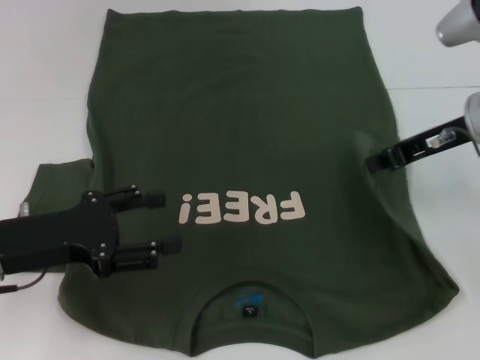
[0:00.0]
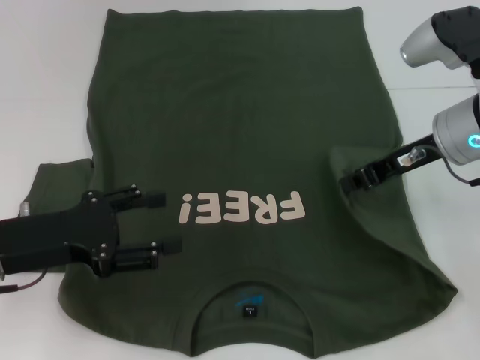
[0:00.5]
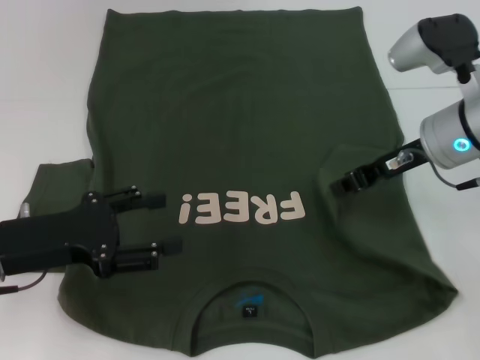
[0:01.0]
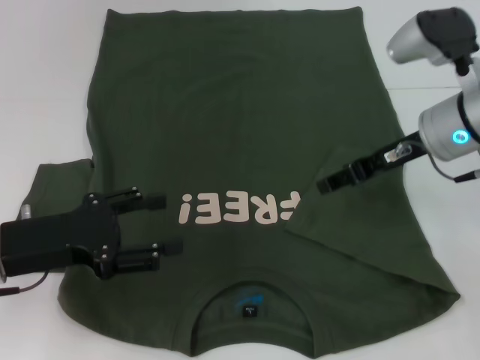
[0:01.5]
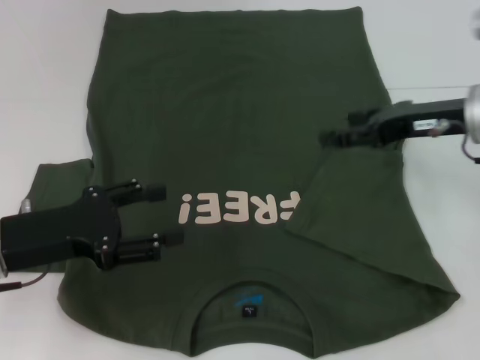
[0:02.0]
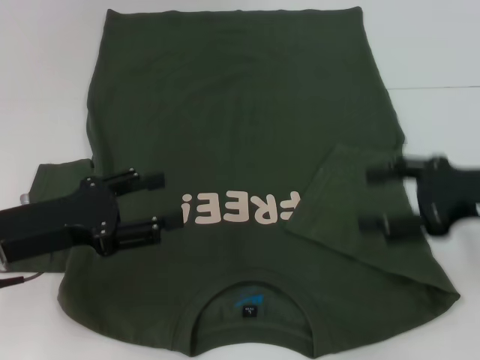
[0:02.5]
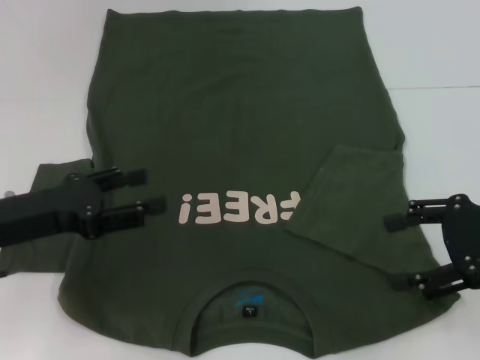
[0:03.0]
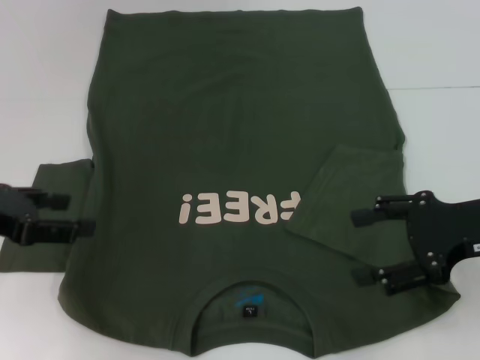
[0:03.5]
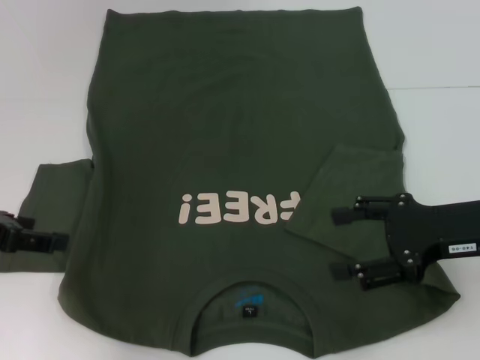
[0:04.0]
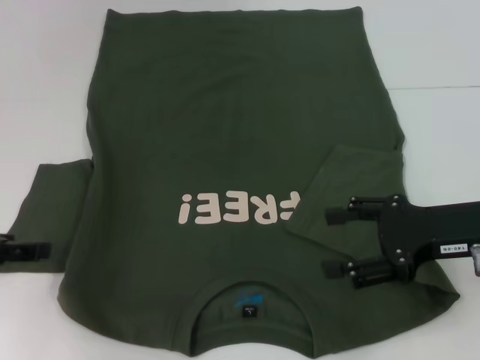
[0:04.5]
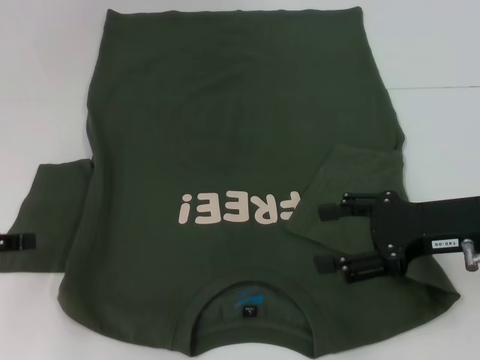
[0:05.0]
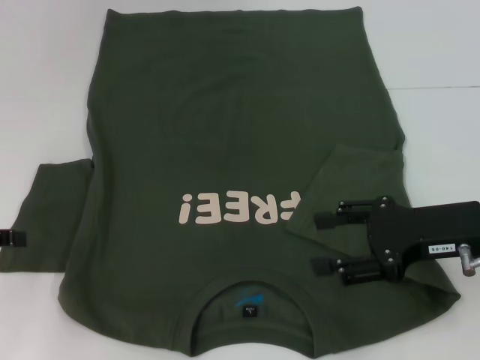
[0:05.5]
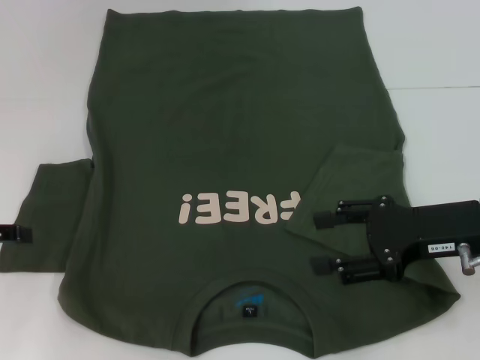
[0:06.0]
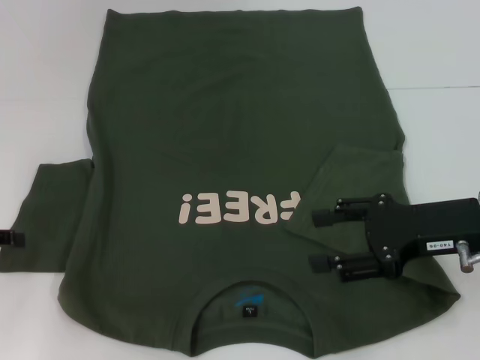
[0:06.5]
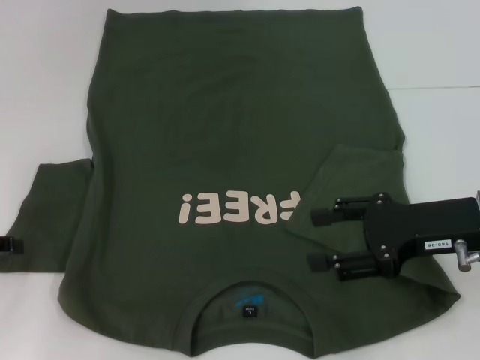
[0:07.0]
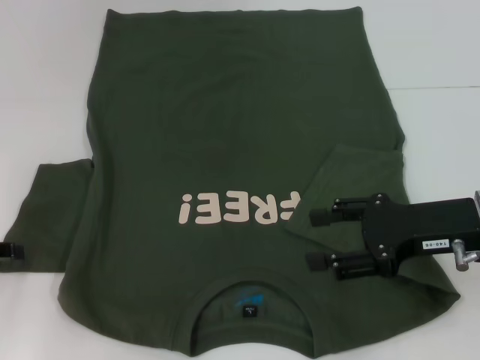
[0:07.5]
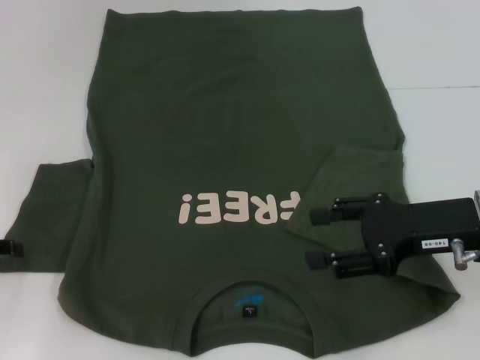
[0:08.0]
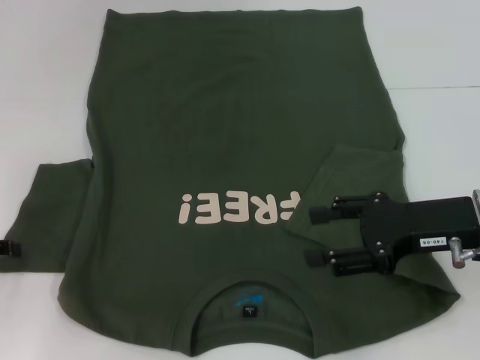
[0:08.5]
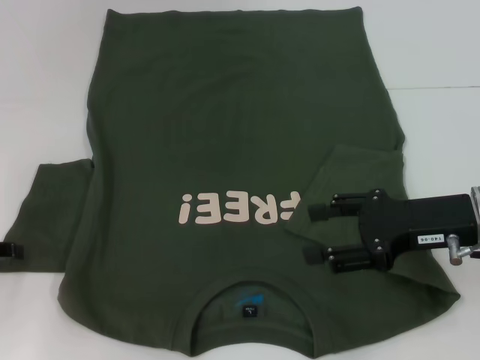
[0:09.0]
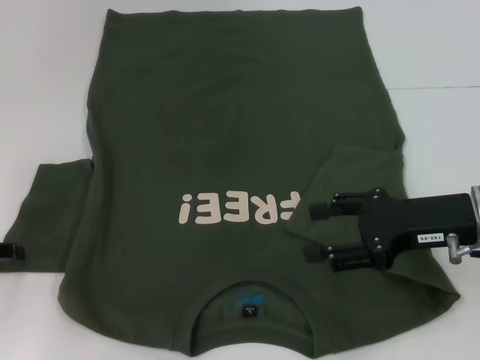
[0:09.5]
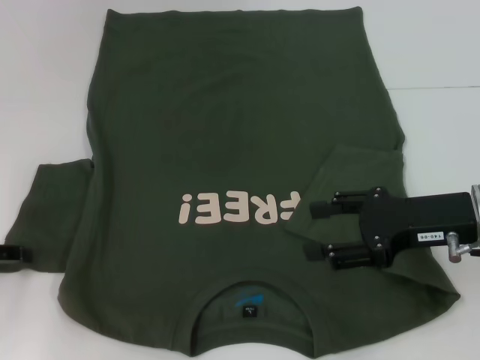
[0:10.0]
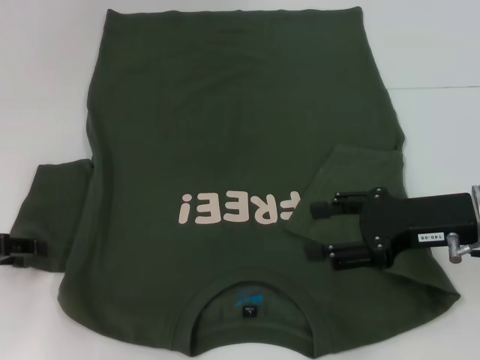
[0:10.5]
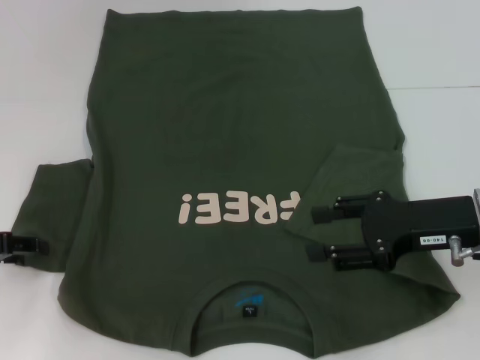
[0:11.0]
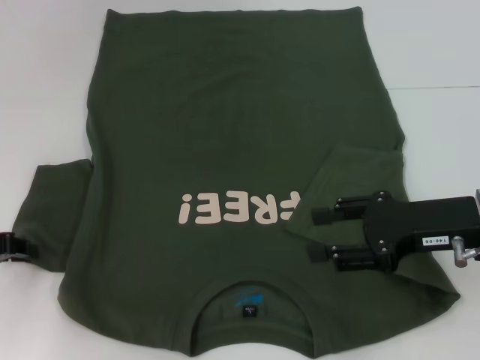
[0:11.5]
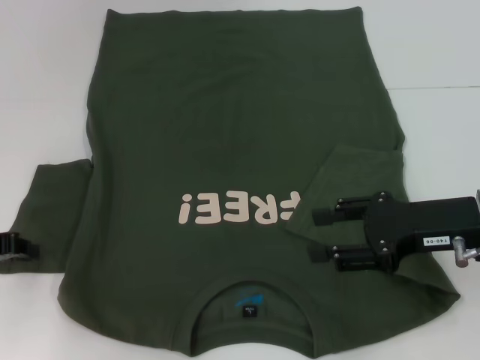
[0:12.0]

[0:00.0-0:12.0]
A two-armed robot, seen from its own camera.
0:00.0 to 0:02.0: The right gripper opens up.
0:02.0 to 0:04.0: The right gripper shifts some 10 cm backward; the left gripper heads upward and to the left, covering some 10 cm.
0:04.0 to 0:06.0: The left gripper moves some 5 cm.
0:06.0 to 0:08.0: The grippers stay close to where they were, moving slightly.
0:08.0 to 0:10.0: Neither gripper changes place.

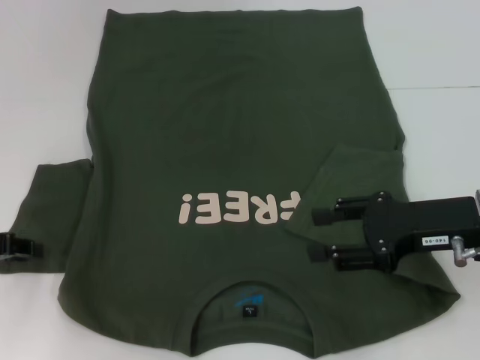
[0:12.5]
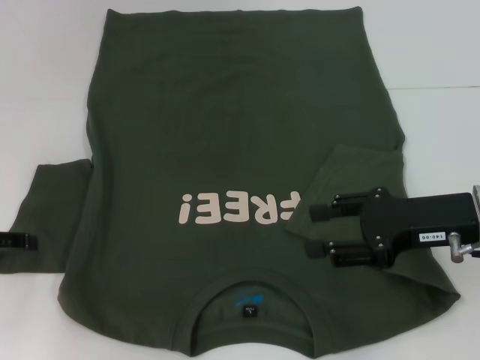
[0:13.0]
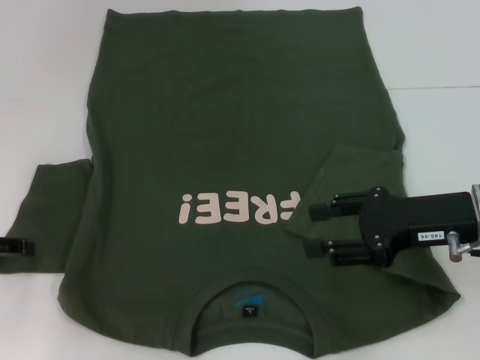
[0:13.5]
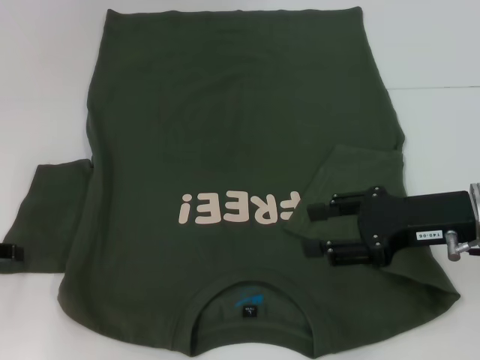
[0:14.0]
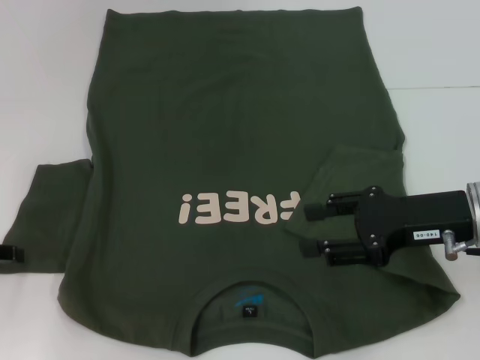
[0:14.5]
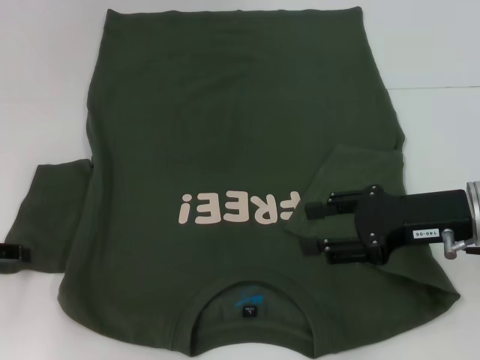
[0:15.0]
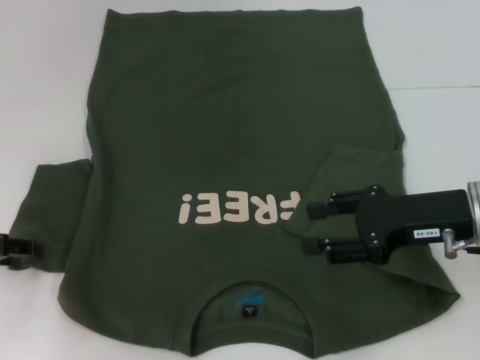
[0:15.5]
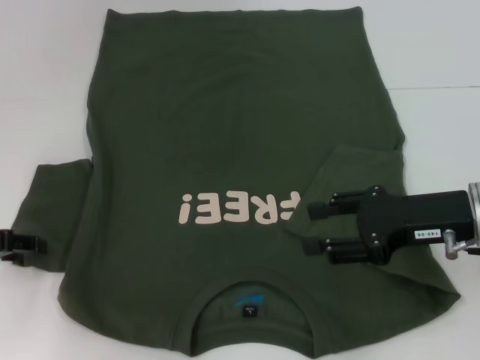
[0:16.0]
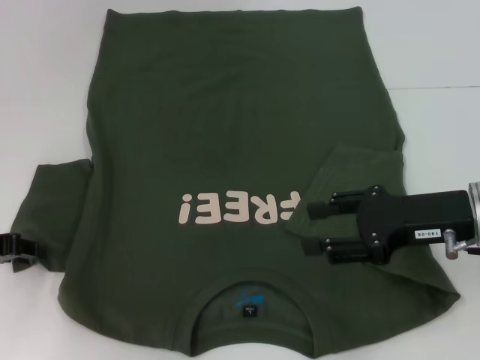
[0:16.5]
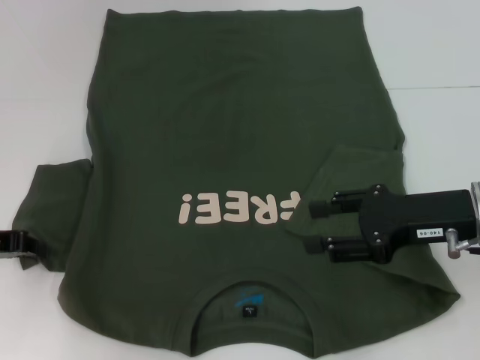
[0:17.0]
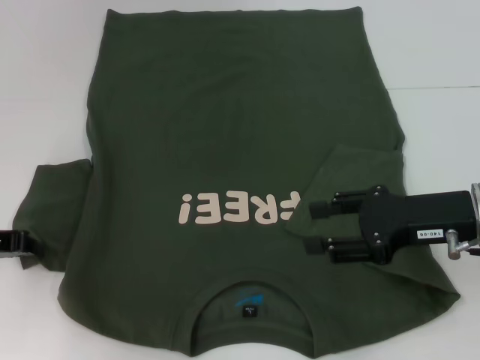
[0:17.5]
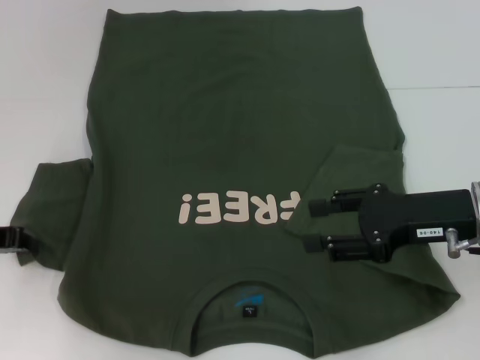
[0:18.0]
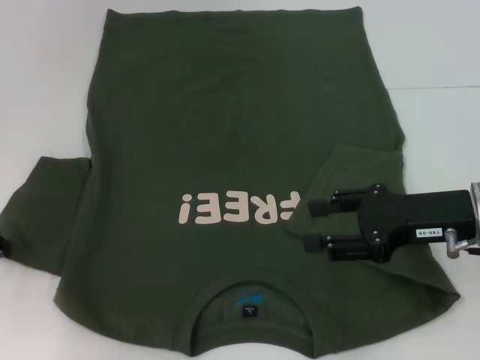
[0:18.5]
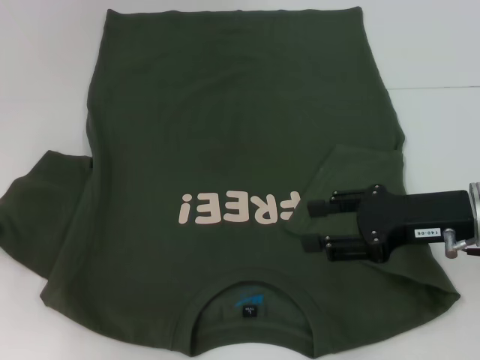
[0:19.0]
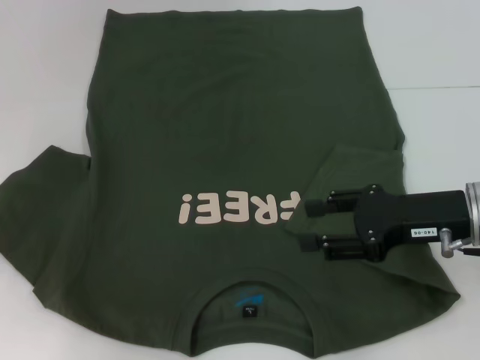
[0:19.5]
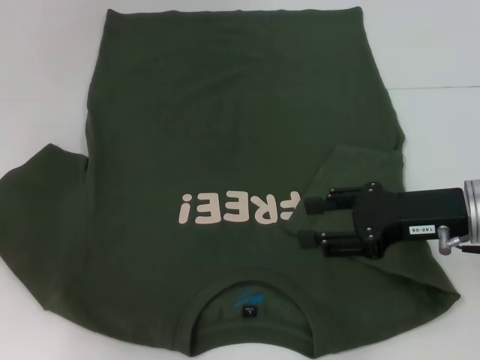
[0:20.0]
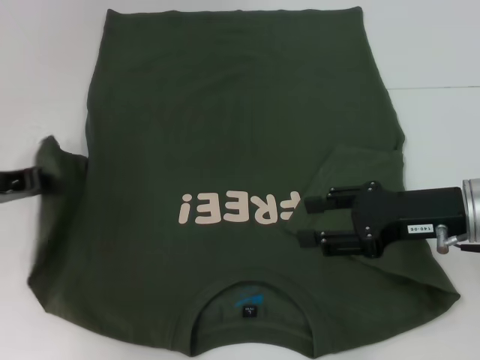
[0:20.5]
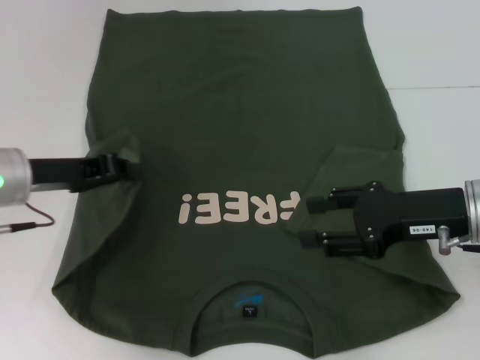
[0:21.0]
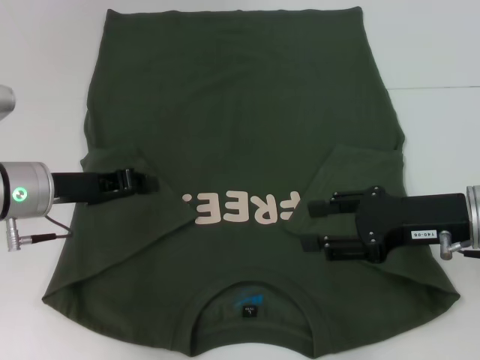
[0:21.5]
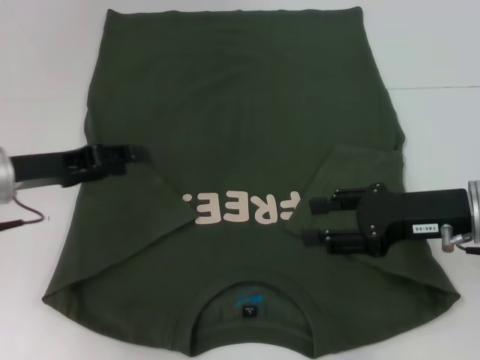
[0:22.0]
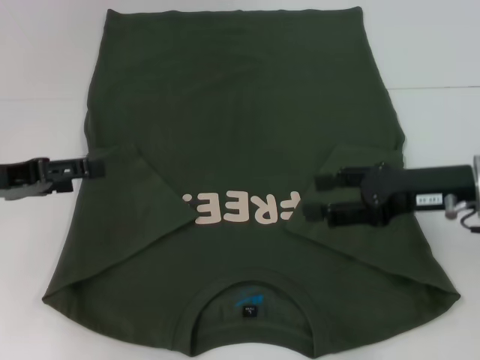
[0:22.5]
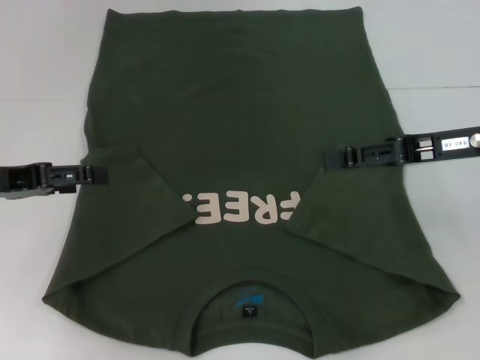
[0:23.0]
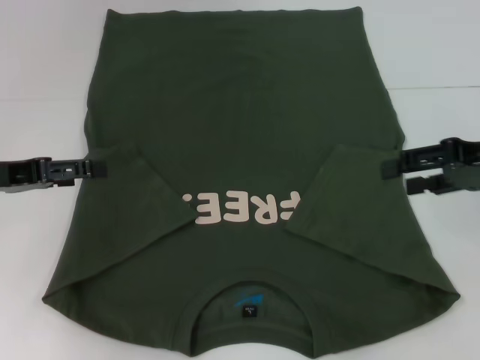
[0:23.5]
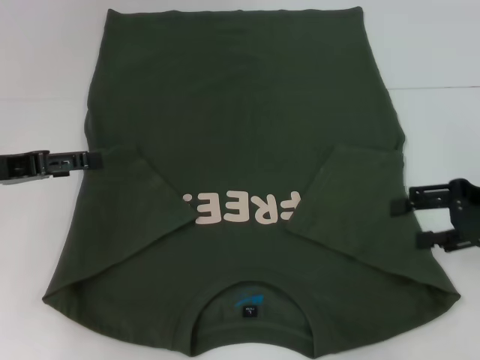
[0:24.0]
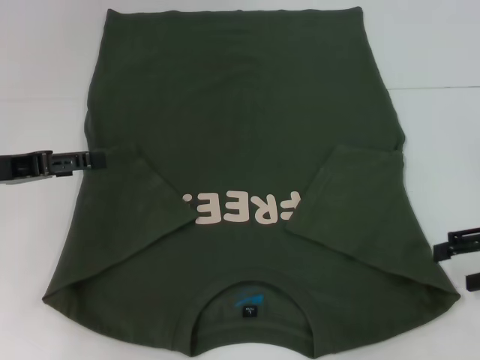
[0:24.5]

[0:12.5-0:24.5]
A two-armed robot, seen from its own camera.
Step, 0:12.5 to 0:21.5: Fold the bottom left sleeve with your left hand.
0:14.5 to 0:16.5: There are only small adjustments of the grippers.
0:16.5 to 0:18.5: The left gripper closes its fingers.
0:18.5 to 0:20.5: The left gripper moves about 5 cm.
0:20.5 to 0:22.5: The left gripper moves roughly 5 cm to the right and comes back, and opens its fingers.
0:22.5 to 0:24.5: The right gripper goes approximately 10 cm to the right.

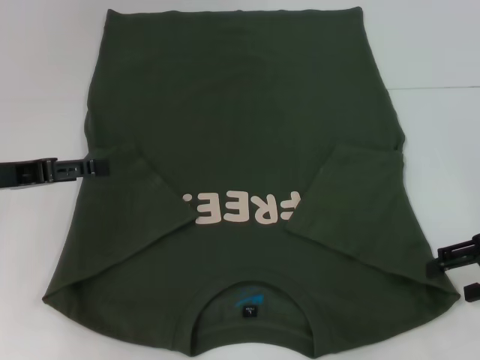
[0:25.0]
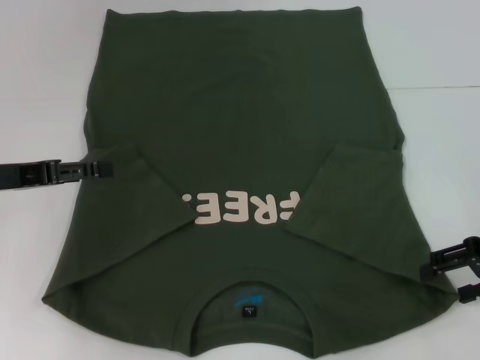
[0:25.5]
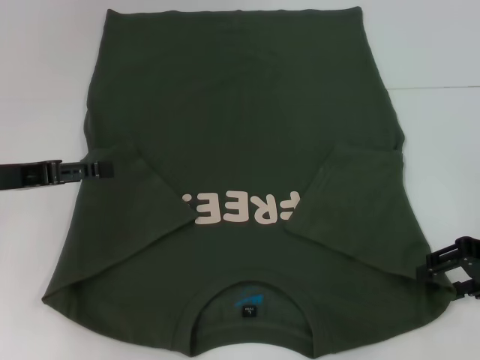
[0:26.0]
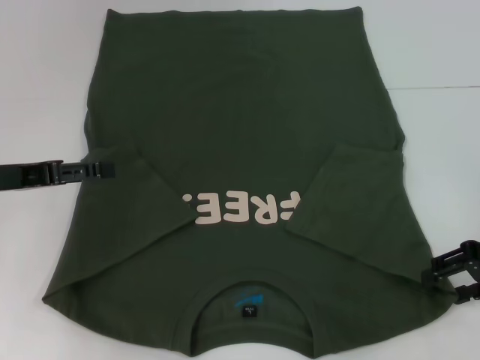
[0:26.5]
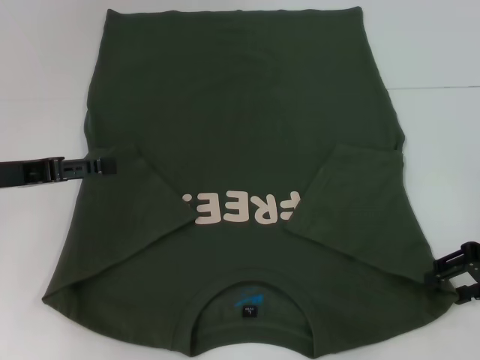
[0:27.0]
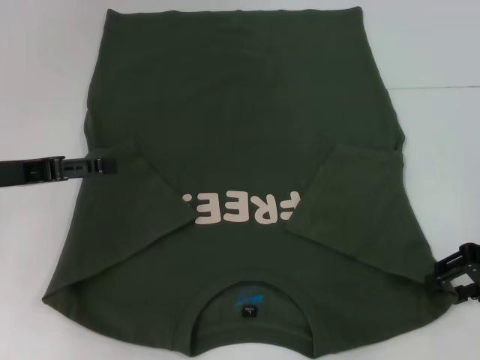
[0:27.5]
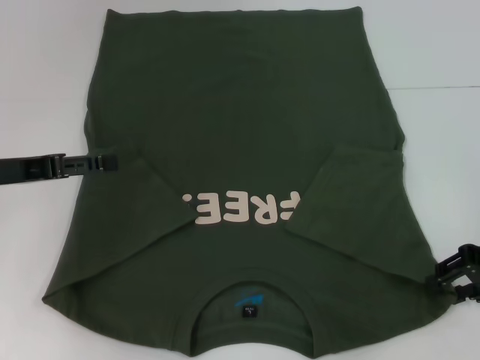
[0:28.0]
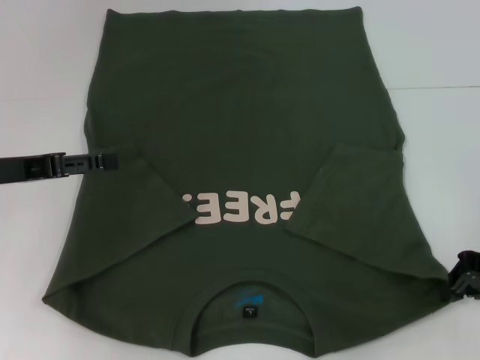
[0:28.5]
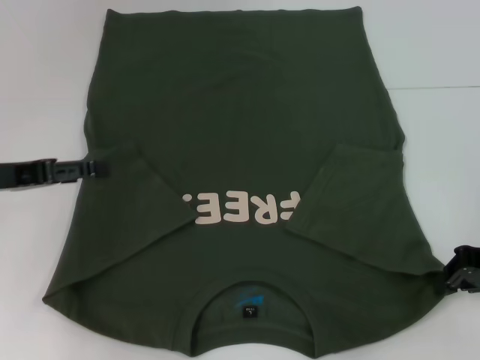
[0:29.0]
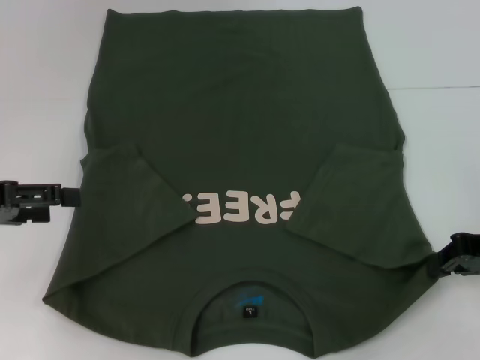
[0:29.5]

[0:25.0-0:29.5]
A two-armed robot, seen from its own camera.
Step, 0:25.0 to 0:29.0: Grab the bottom right corner with your right hand.
0:25.0 to 0:27.0: The grippers move only a little.
0:27.0 to 0:29.5: The left gripper moves approximately 5 cm. Meanwhile the right gripper closes its fingers.
